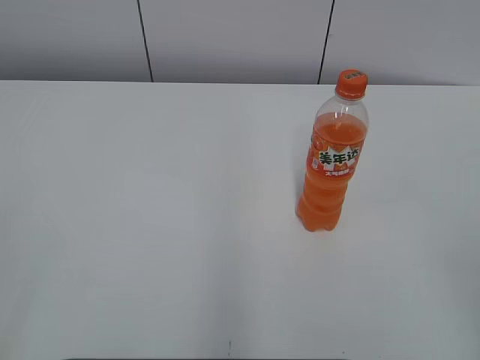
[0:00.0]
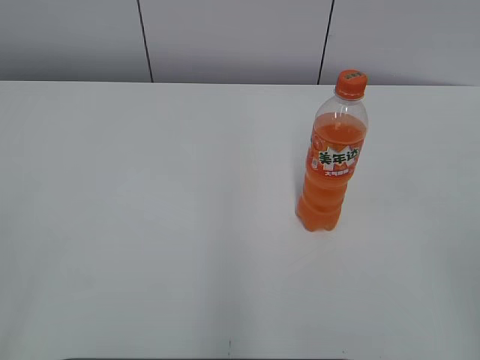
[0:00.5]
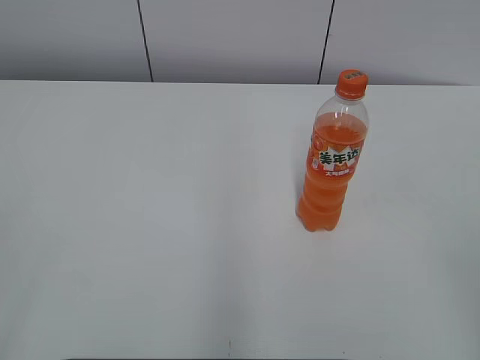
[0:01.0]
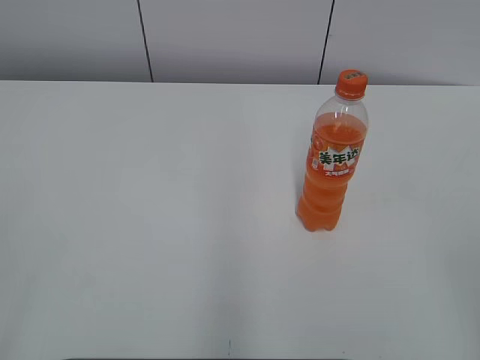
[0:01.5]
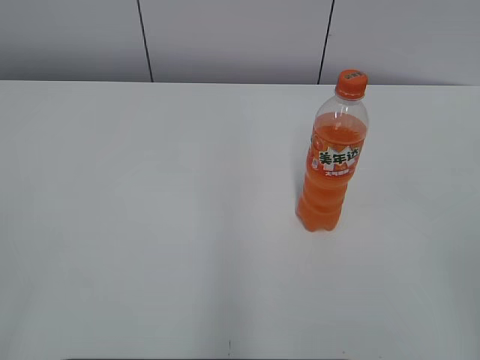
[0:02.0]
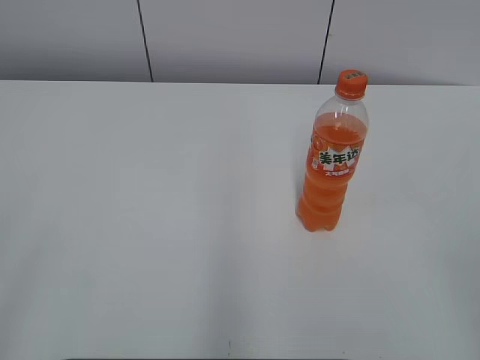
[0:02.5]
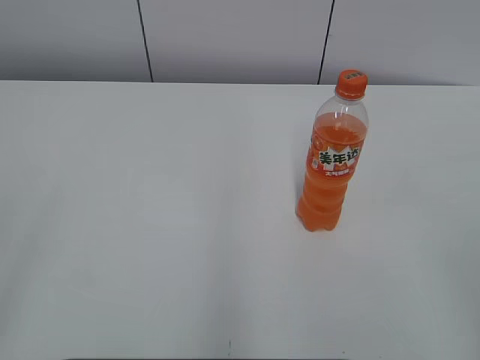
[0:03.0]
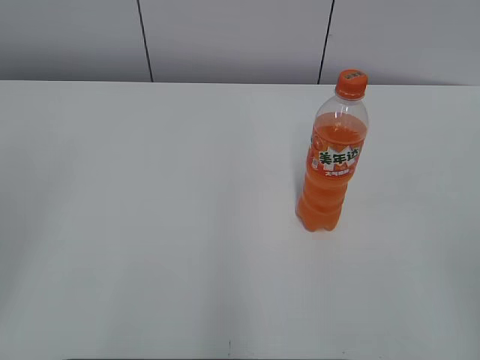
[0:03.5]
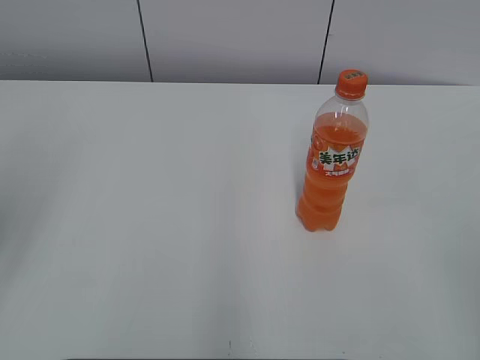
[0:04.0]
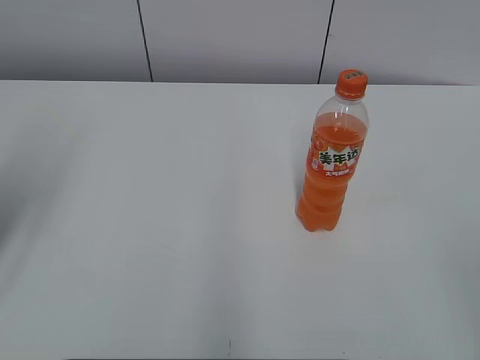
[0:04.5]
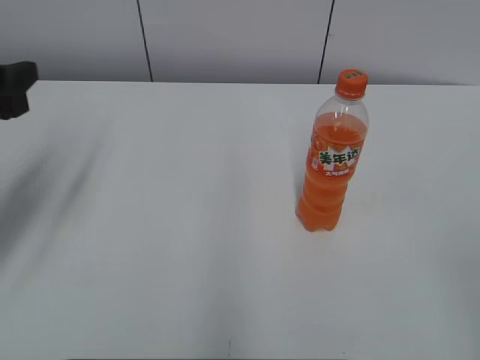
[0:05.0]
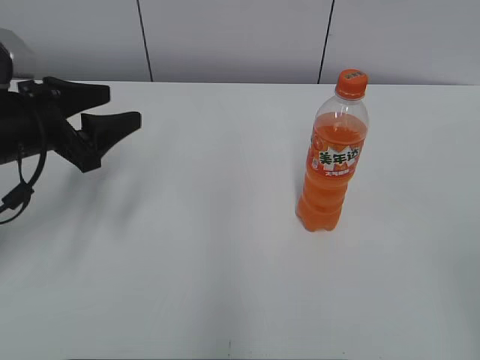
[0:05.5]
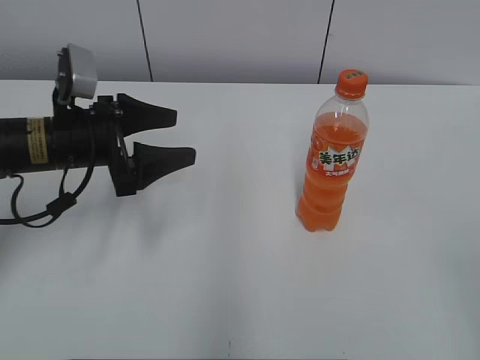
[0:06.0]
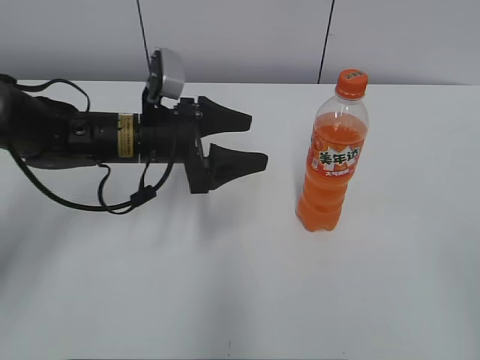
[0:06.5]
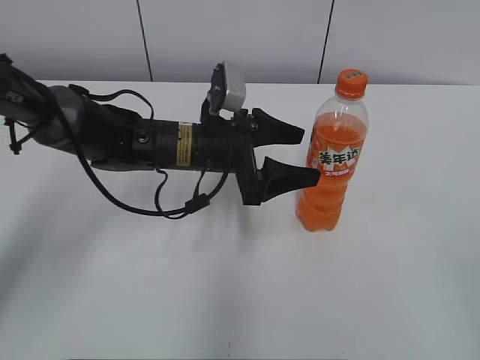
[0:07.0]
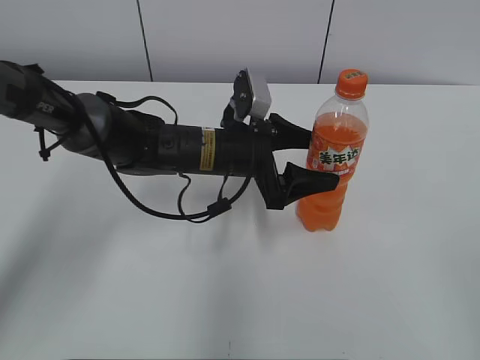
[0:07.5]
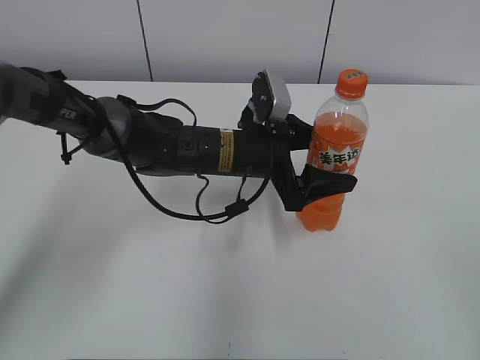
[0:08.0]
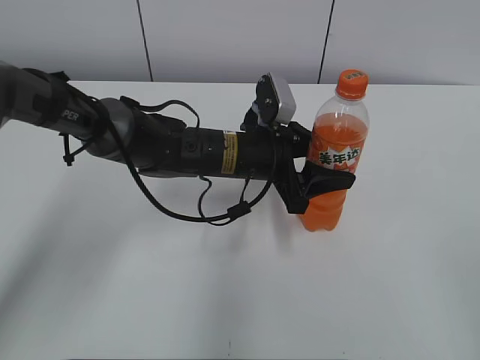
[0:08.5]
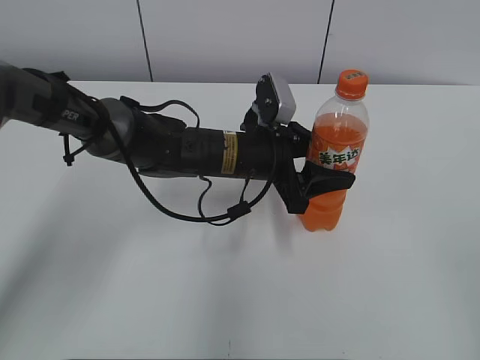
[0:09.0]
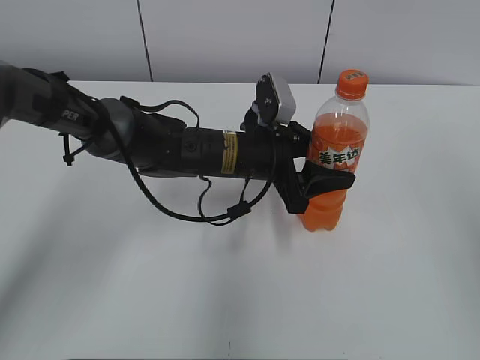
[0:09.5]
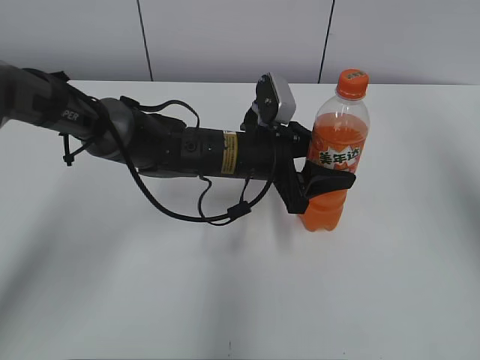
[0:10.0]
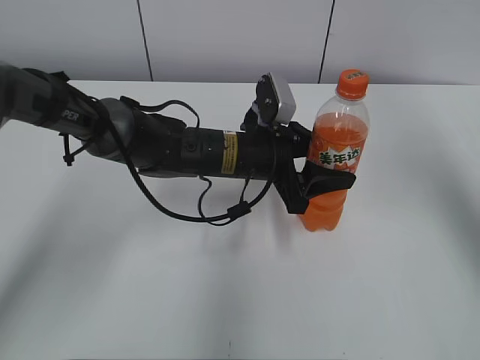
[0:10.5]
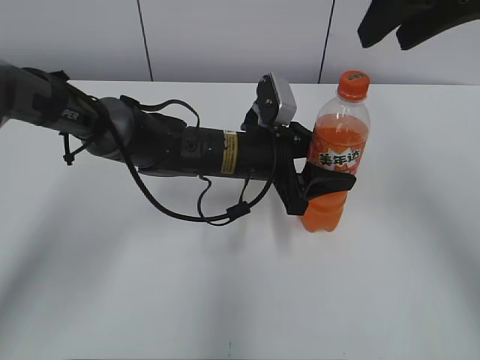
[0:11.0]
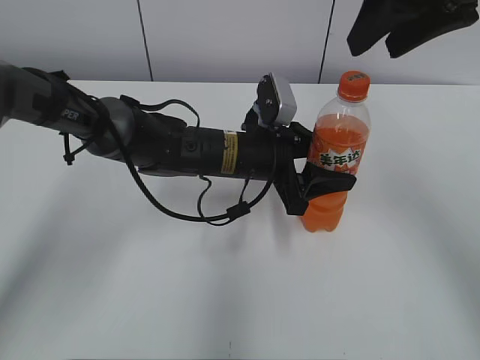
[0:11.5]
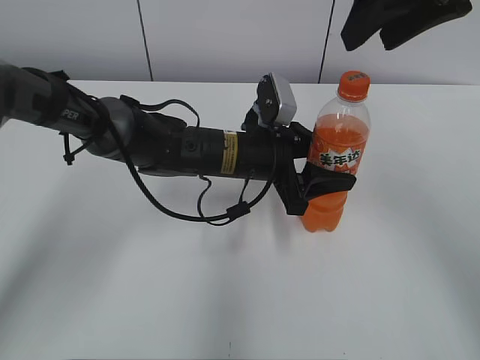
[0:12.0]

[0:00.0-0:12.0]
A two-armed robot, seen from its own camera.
Step, 0:00.0 to 0:08.5: Grab the Mirinda with the left hand.
0:04.0 to 0:06.0: The left gripper heads forward, downward and to the right, covering about 25 cm.
0:06.0 to 0:08.0: The left gripper shifts some 20 cm to the right.
0:08.0 to 0:10.0: The left gripper closes. Meanwhile the right gripper is displaced forward and upward by approximately 25 cm.
0:10.0 to 0:12.0: The right gripper shifts about 15 cm to the left and forward.

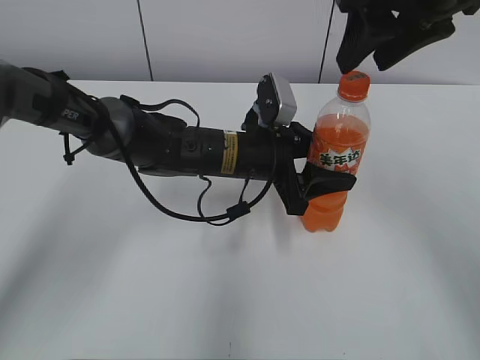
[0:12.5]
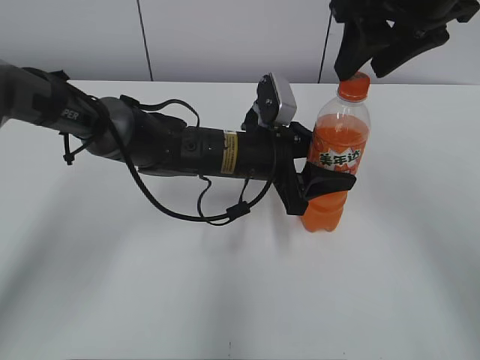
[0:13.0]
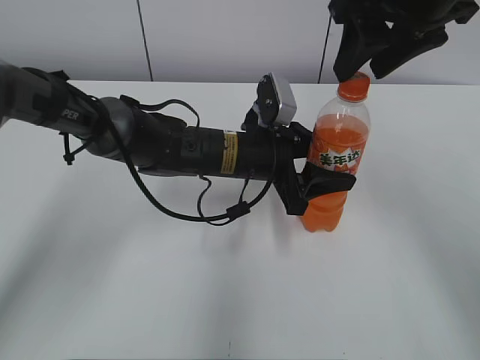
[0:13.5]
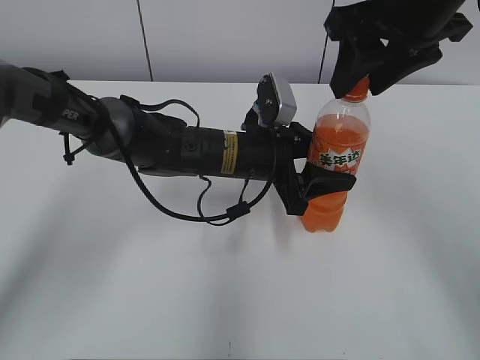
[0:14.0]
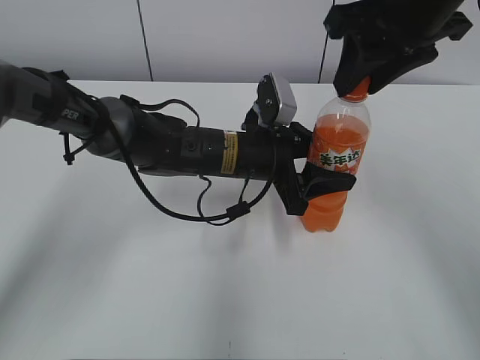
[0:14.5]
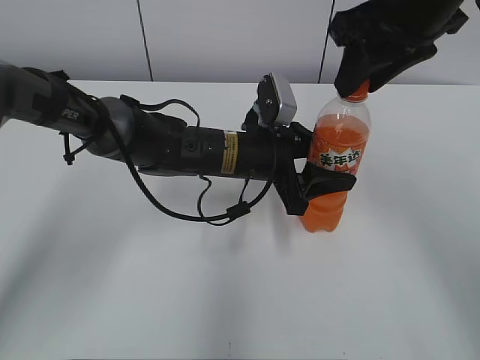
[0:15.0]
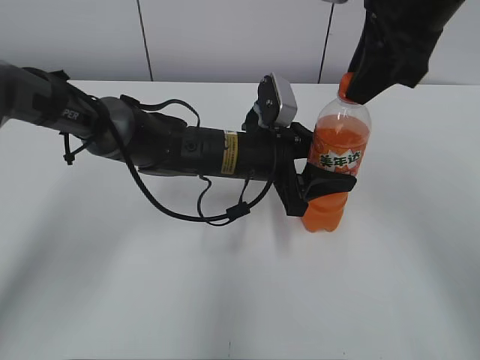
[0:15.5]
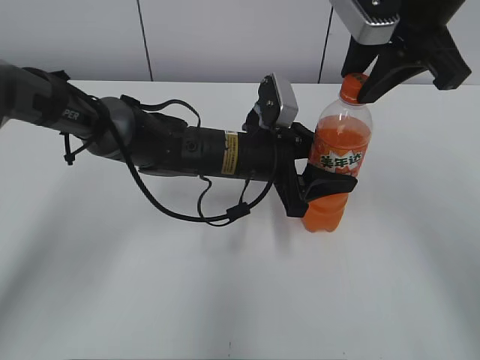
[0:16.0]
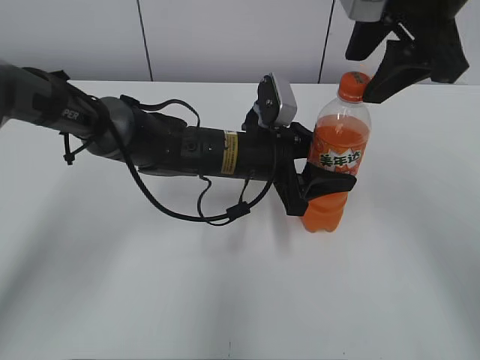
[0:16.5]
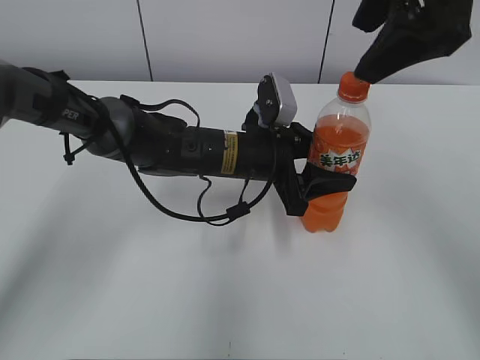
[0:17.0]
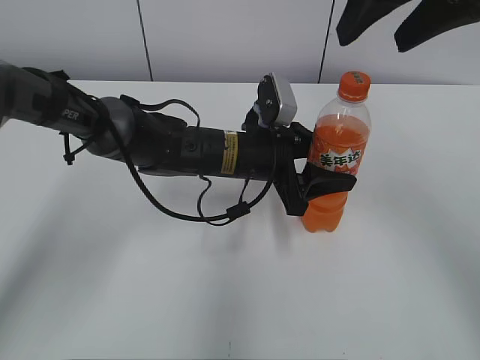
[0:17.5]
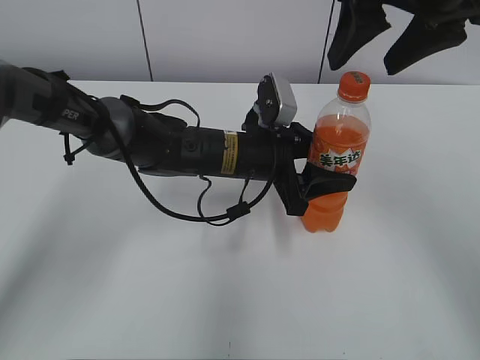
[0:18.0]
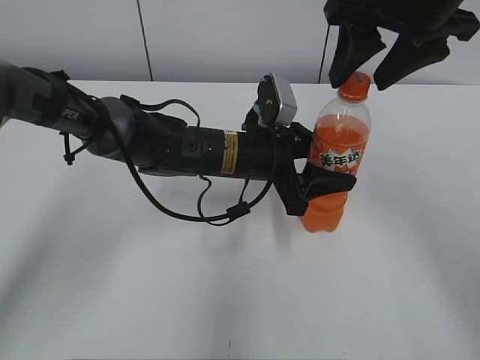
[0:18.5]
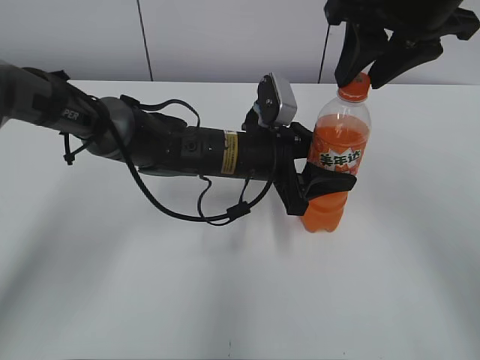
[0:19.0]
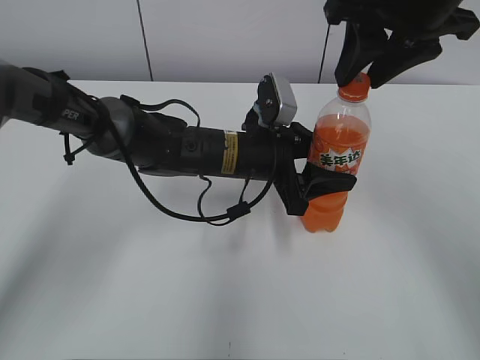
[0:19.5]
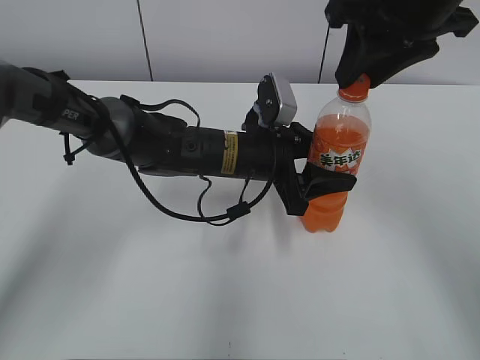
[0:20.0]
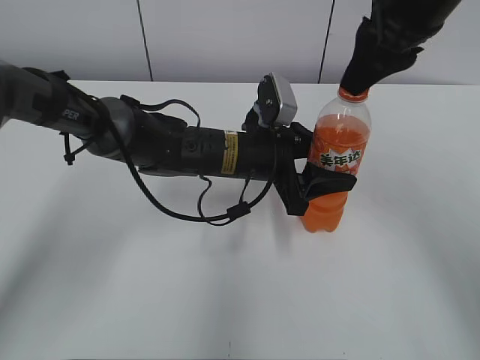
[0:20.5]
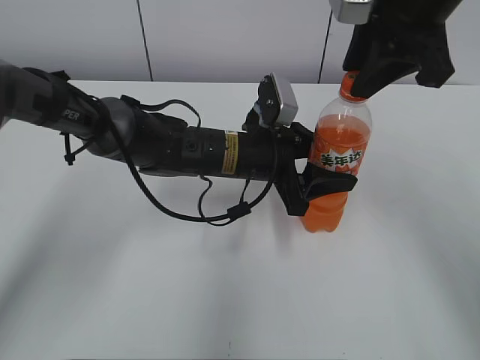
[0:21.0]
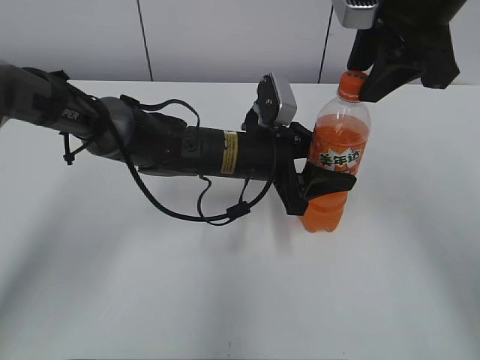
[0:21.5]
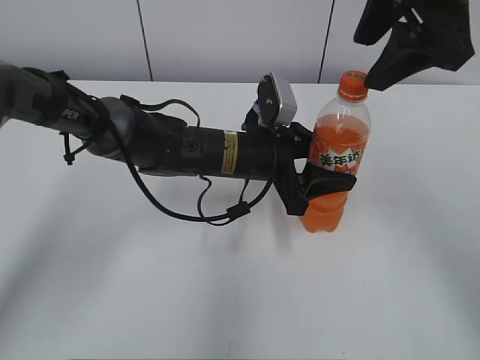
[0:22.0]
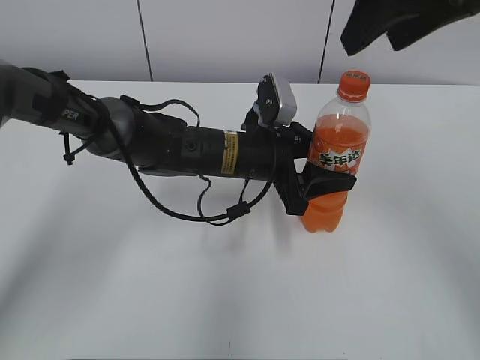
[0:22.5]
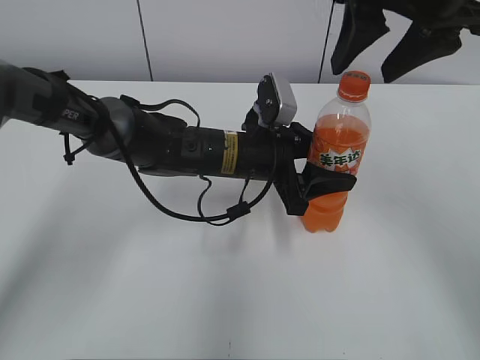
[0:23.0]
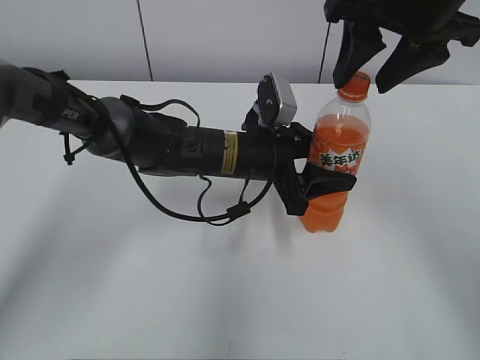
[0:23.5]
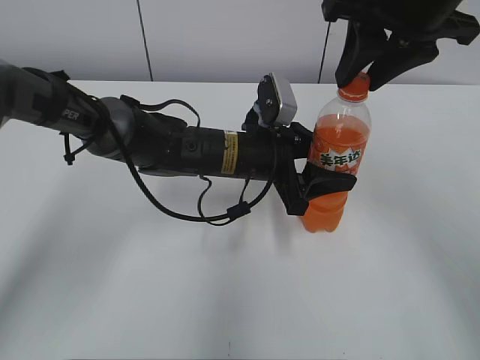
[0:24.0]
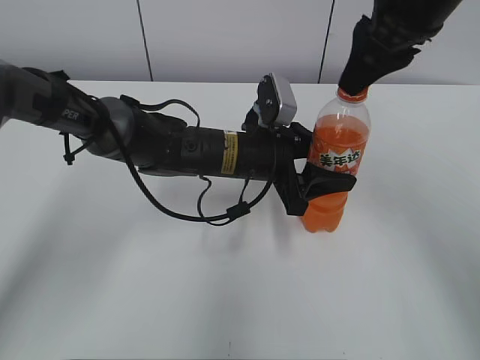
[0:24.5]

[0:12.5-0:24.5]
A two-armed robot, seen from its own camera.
0:12.5 to 0:14.5: The grippers stay close to where they were, moving slightly.
0:18.5 to 0:20.5: The right gripper closes up.
0:20.5 to 0:22.5: The right gripper shifts by some 5 cm, and opens.
0:22.5 to 0:24.5: The right gripper changes place by roughly 5 cm, and closes up.

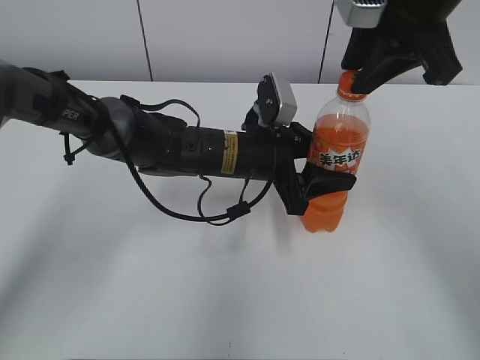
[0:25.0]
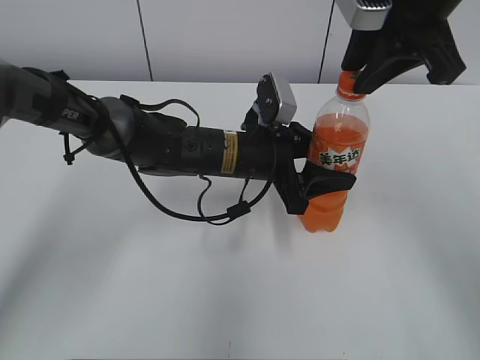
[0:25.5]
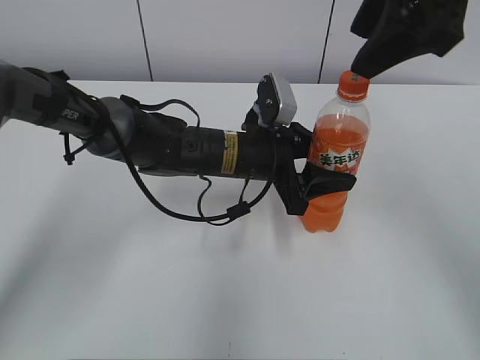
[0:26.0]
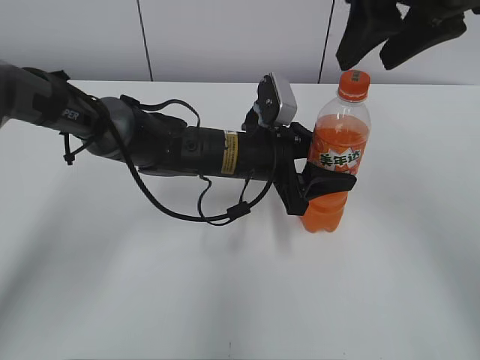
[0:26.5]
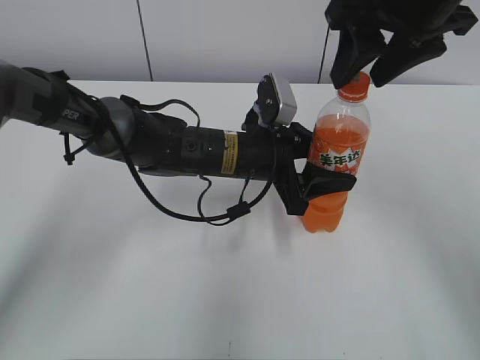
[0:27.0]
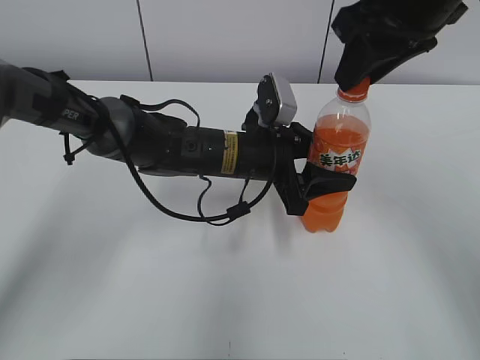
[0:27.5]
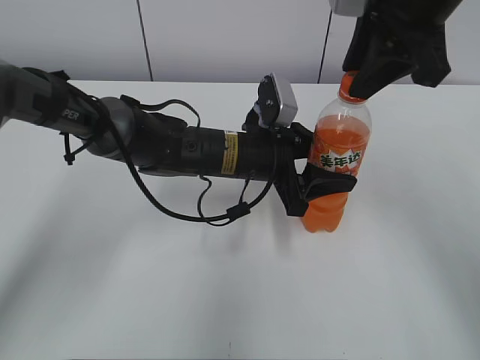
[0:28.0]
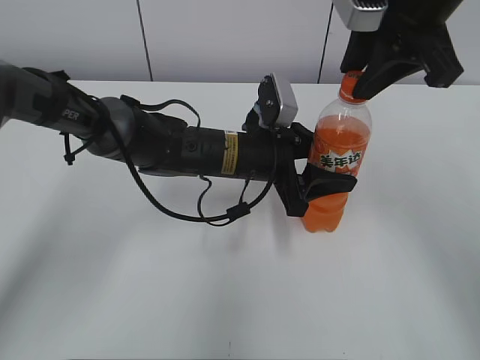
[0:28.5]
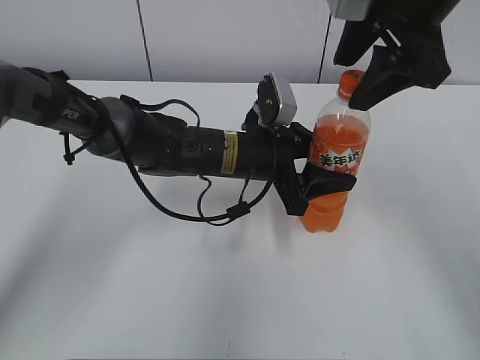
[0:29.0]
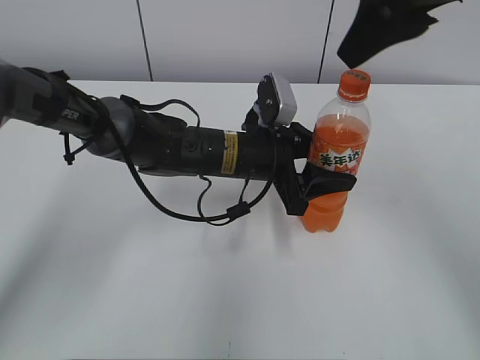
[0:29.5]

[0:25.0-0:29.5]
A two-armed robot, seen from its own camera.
0:25.0 to 0:27.0: The right gripper opens up.
0:27.0 to 0:29.5: The right gripper closes, then opens again.
